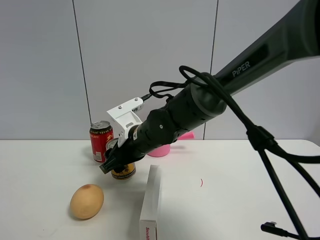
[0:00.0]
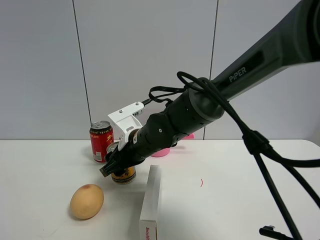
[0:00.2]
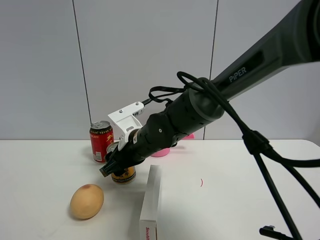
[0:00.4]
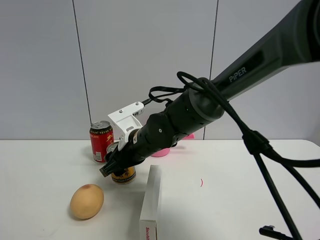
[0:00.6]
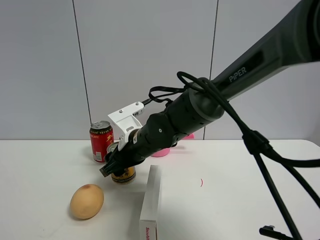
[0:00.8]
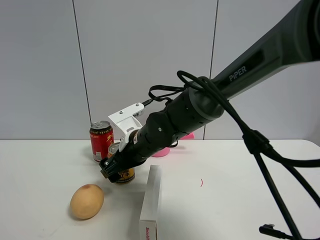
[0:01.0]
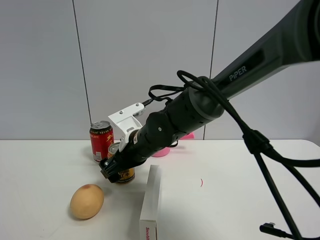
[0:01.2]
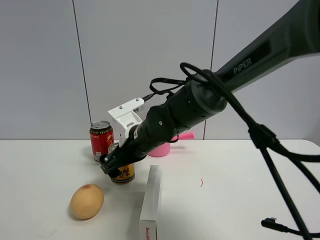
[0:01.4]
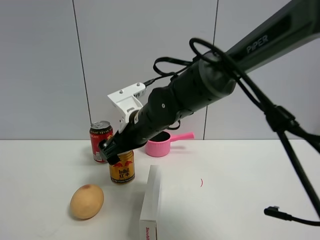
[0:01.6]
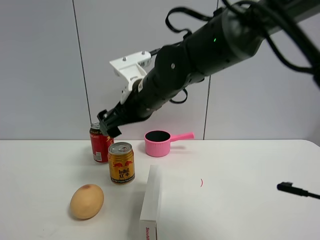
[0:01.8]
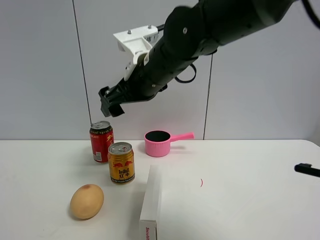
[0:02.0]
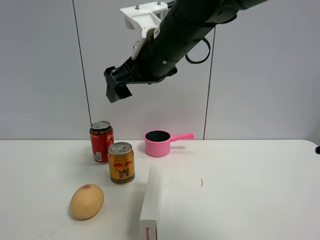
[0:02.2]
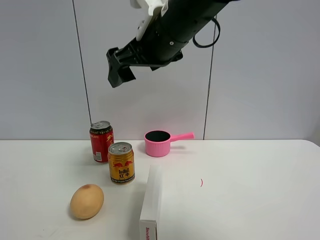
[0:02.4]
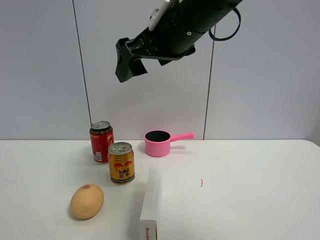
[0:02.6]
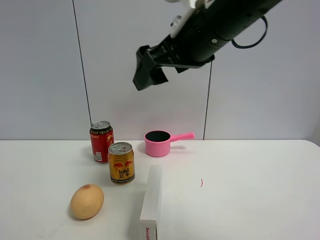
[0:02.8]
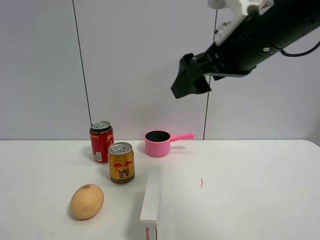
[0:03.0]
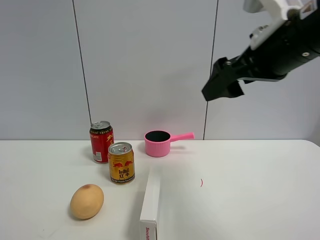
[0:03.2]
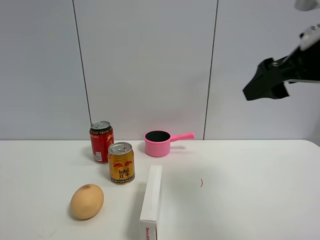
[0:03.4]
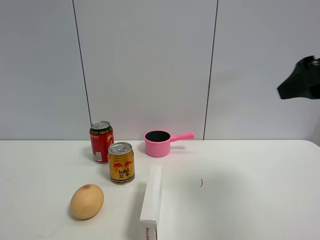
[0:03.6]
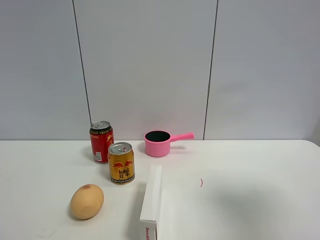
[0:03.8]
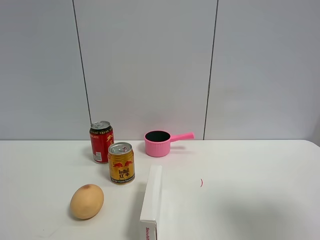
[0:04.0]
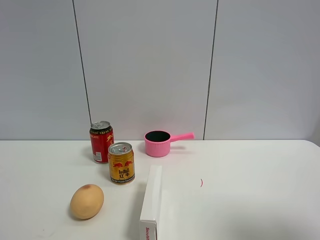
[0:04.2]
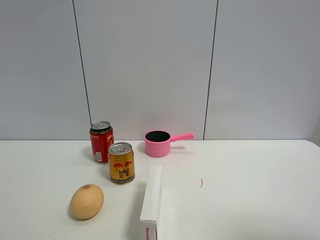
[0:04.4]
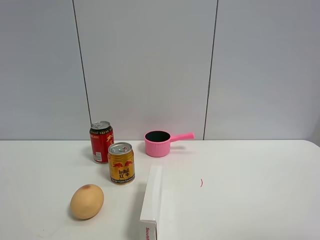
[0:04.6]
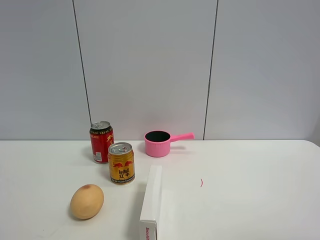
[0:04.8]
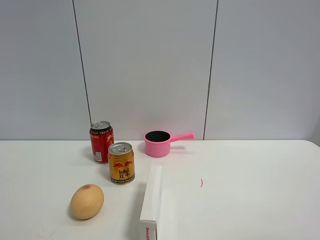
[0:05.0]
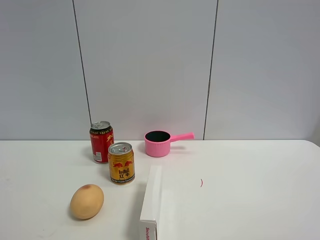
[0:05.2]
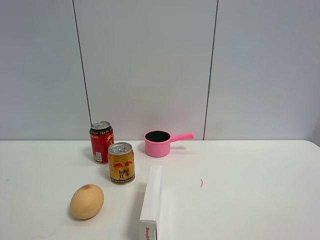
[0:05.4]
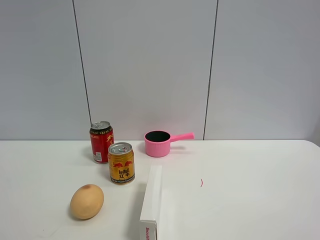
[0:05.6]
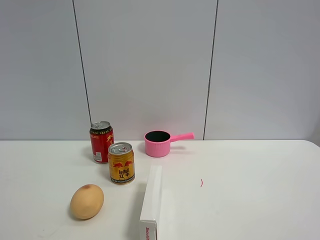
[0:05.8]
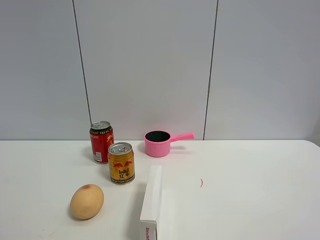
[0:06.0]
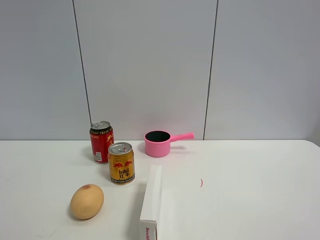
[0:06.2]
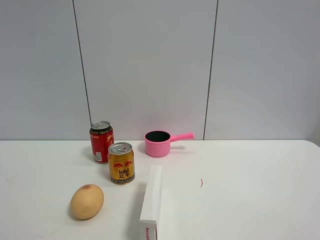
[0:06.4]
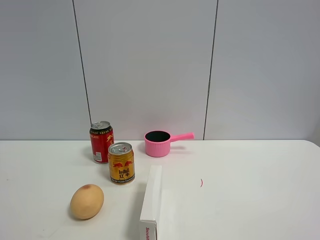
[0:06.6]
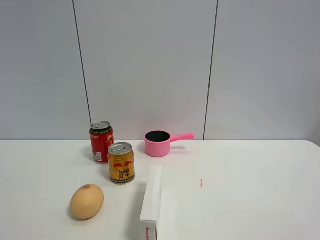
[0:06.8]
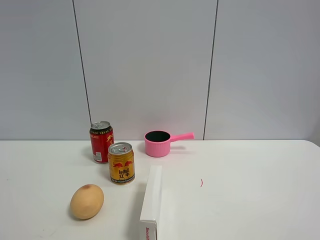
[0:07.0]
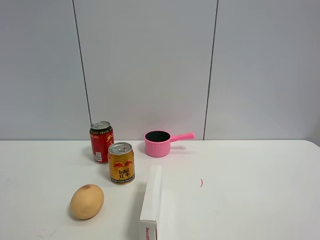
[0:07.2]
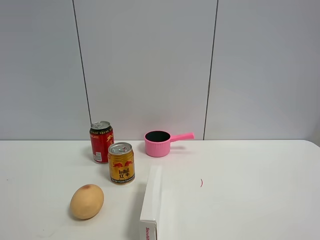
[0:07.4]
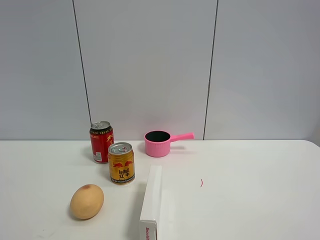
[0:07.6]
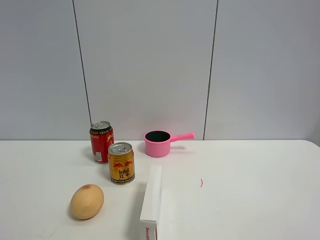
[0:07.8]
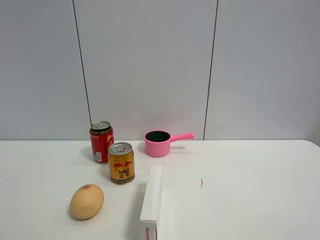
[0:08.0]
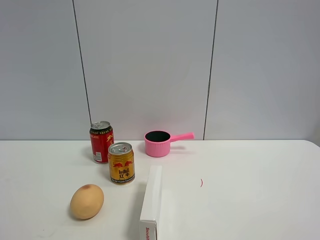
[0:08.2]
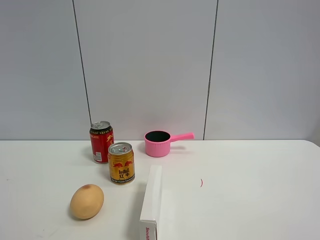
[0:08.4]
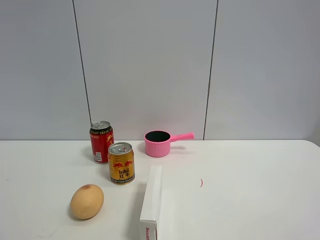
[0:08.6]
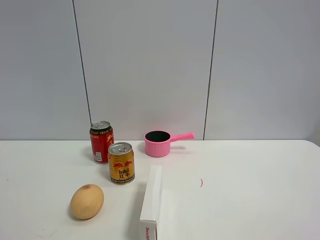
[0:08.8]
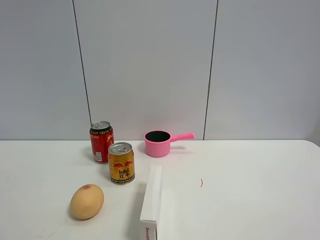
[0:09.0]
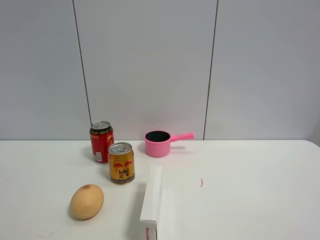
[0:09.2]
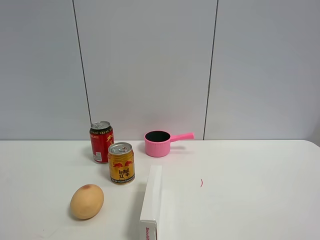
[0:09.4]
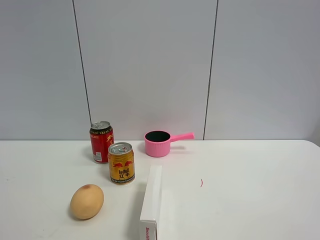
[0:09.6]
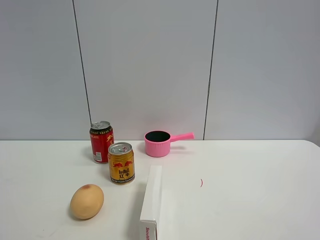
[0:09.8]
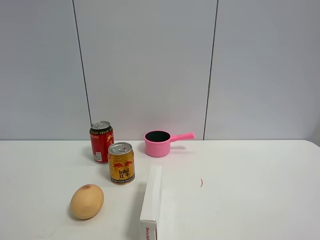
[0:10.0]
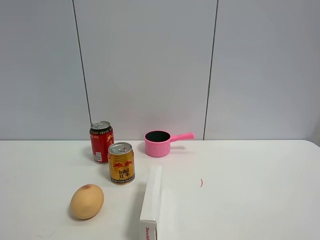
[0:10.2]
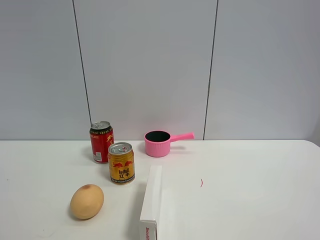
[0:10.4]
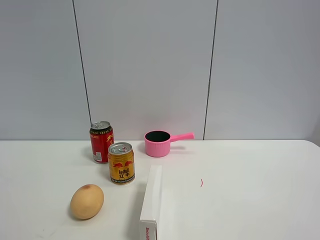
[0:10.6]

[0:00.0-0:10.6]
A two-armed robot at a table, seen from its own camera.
Task of the whole recording: the gripper move the object.
Step, 0:00.0 to 0:02.0: Place the red bull on the table with the right gripper.
0:00.0 to 0:01.6: The right gripper opens its fingers.
0:01.6 to 0:03.0: The right gripper is displaced to the right, upward and backward by about 25 cm.
0:03.0 to 0:04.6: The right gripper travels backward and to the right by some 30 cm.
0:06.0 to 0:10.6: Neither gripper changes place.

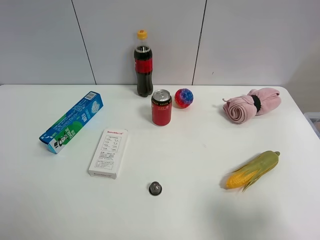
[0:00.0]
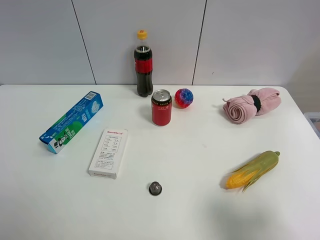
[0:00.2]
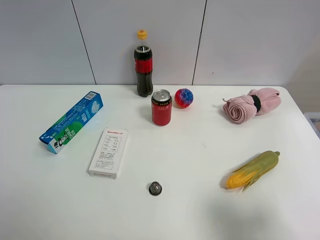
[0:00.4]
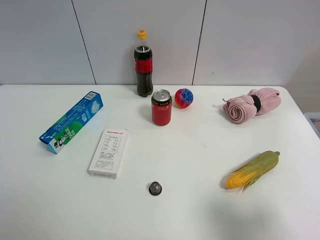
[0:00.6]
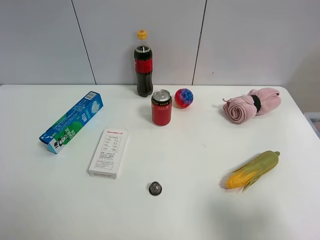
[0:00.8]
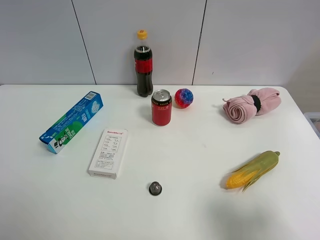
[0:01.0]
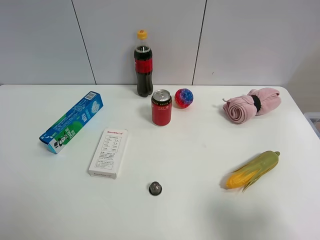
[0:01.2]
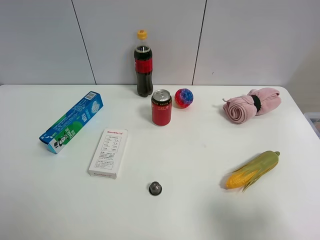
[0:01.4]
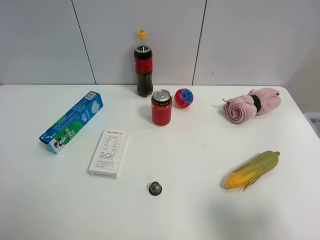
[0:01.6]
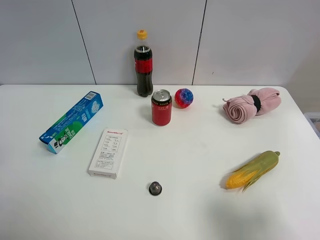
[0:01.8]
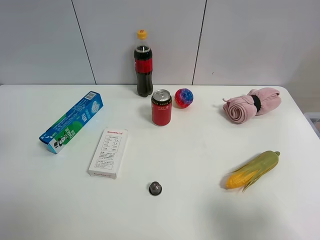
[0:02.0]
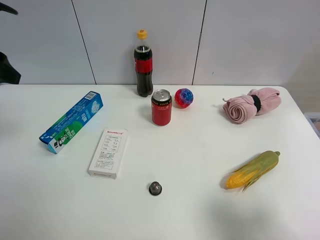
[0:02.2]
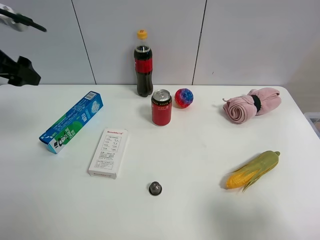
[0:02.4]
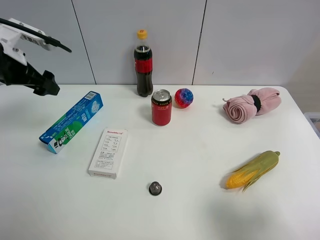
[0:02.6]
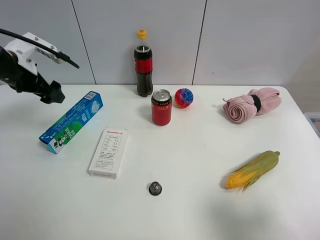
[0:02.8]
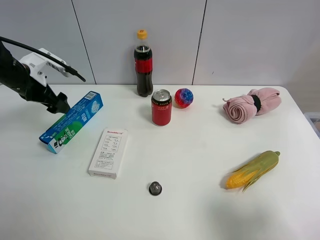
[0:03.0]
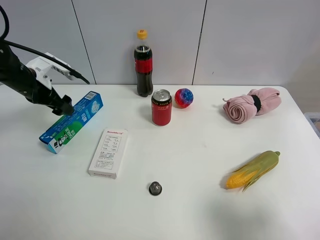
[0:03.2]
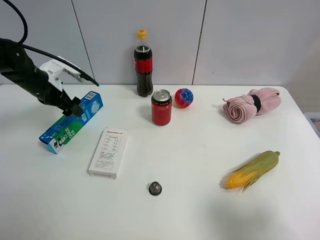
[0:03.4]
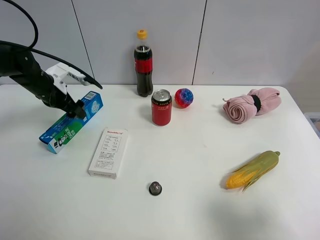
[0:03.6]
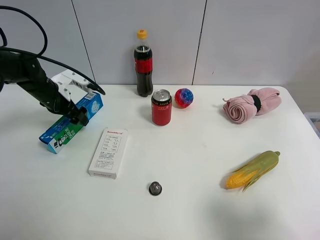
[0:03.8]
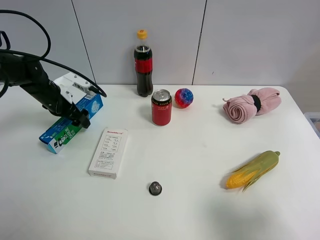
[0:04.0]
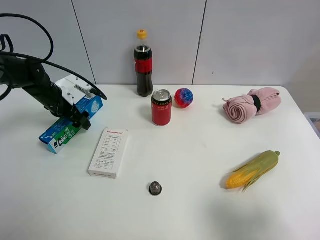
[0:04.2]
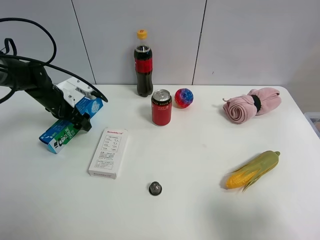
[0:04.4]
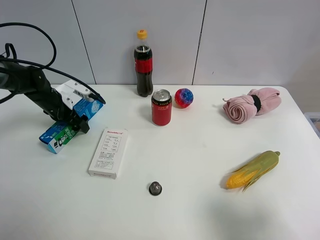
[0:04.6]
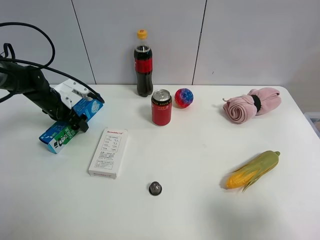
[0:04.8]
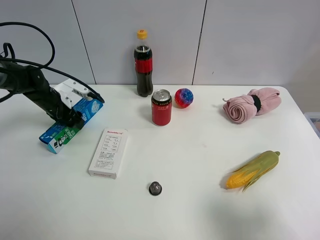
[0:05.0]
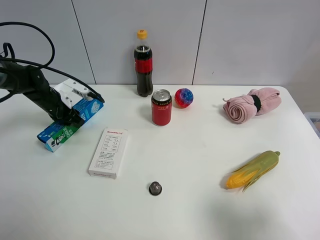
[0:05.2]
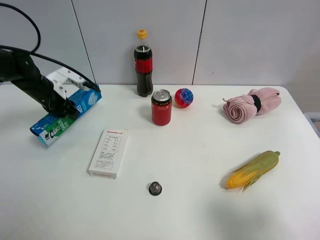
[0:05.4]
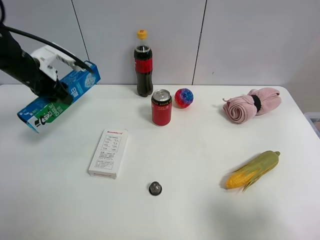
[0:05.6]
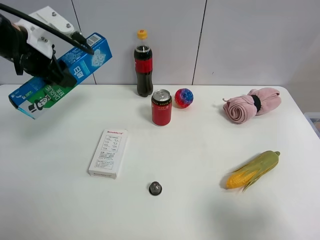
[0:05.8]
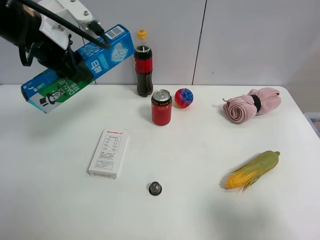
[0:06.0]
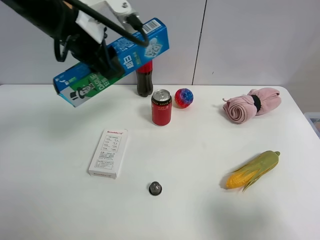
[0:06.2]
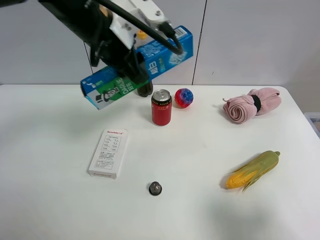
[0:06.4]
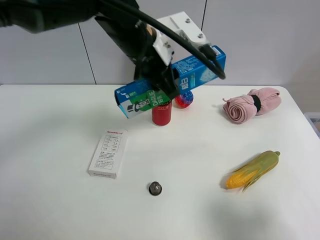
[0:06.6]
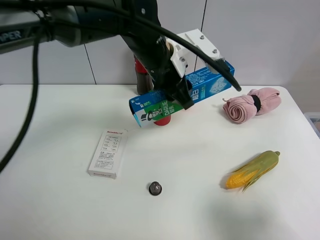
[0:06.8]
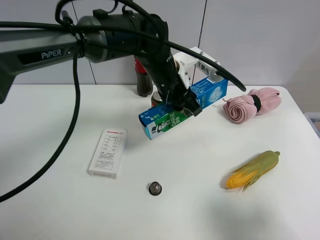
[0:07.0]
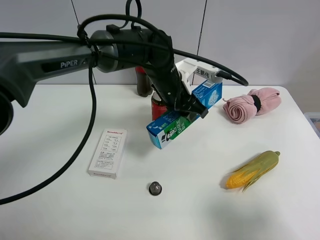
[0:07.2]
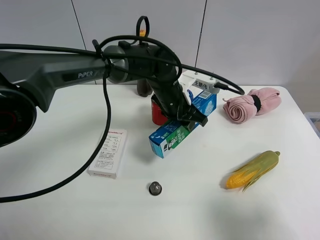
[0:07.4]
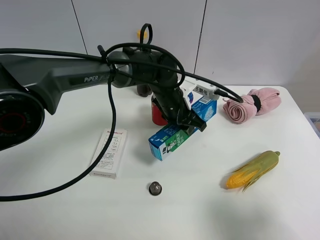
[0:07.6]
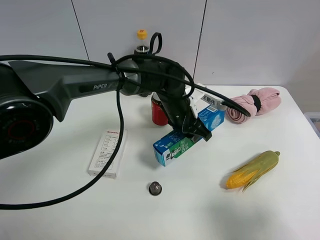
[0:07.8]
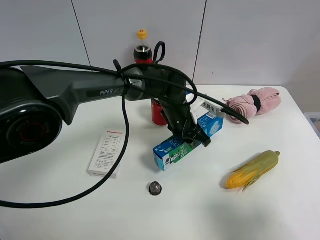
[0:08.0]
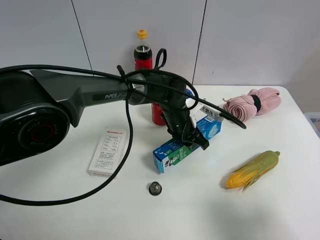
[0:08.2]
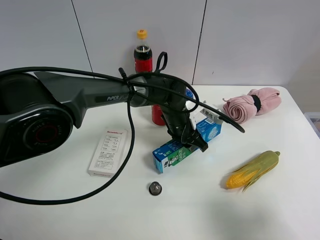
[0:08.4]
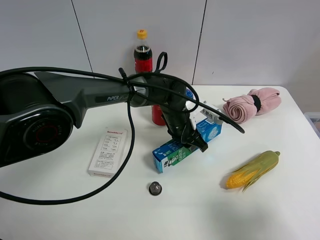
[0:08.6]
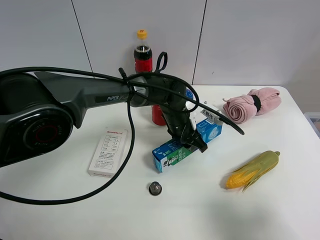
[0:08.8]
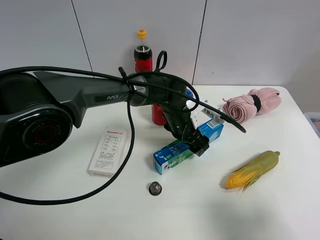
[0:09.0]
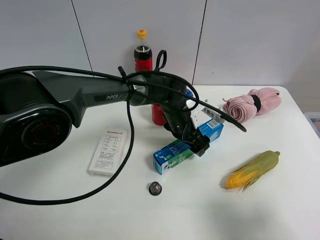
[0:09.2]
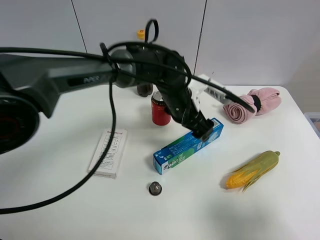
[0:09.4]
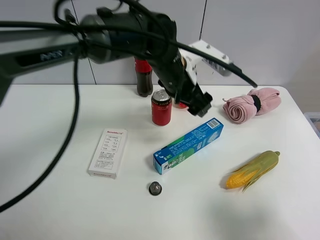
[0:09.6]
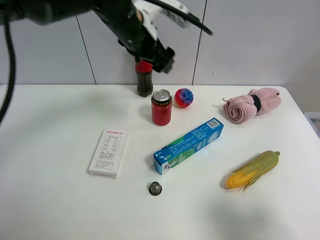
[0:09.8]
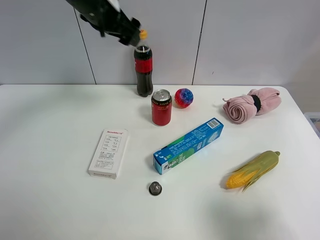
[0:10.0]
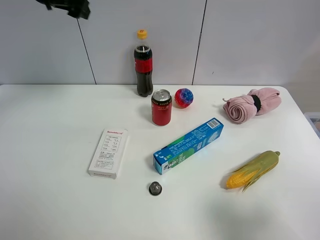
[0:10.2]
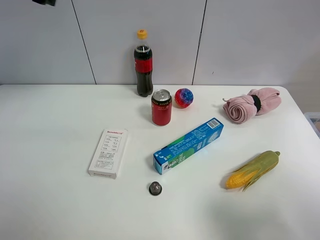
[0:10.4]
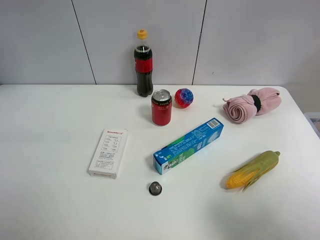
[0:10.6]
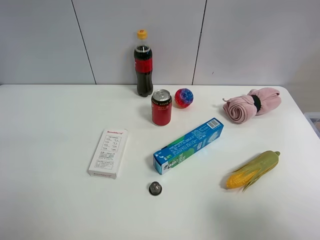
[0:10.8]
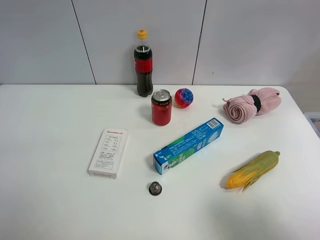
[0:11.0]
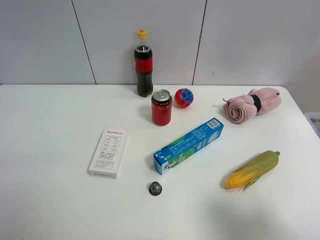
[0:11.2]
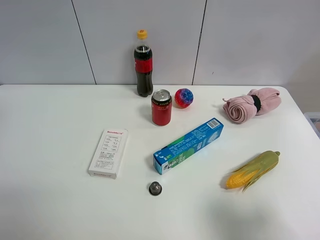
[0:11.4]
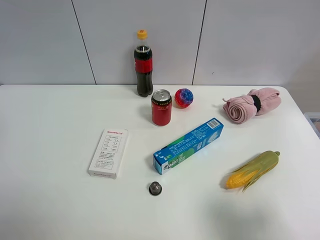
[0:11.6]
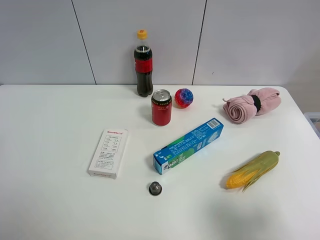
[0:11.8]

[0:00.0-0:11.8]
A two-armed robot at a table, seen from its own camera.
Task of the whole recording: the gripper move the object.
Step, 0:00.0 to 0:05.0: Grasp the toothpaste with the left gripper.
Step, 0:05.2 to 0:09.2: Place the toothpaste on the table with the left gripper.
0:01.4 to 0:03.0: The left gripper travels forward by approximately 35 cm.
0:03.0 to 0:04.4: The left gripper moves downward, roughly 10 cm.
0:04.4 to 0:06.0: The left gripper moves upward and backward, approximately 25 cm, and closes up.
0:06.0 to 0:07.4: The left gripper shifts about 30 cm to the right and downward.
0:07.4 to 0:08.8: The left gripper goes roughly 5 cm downward.
0:08.8 to 0:10.4: The left gripper is displaced to the left and upward by about 40 cm, and opens its fingers.
0:10.4 to 0:11.8: The left gripper moves backward, approximately 30 cm.
